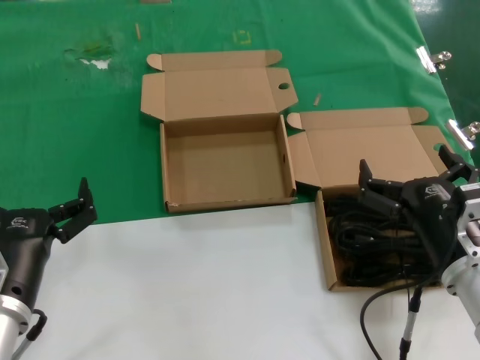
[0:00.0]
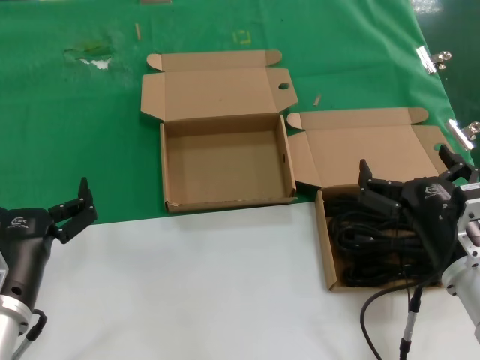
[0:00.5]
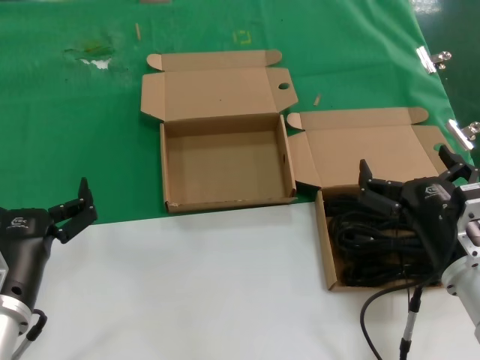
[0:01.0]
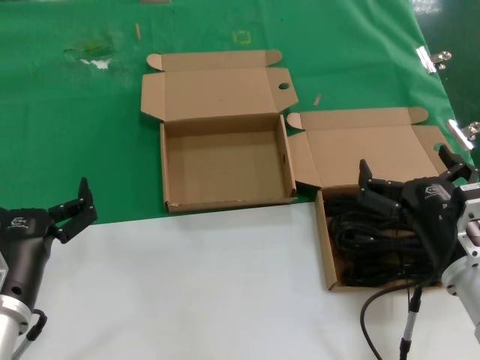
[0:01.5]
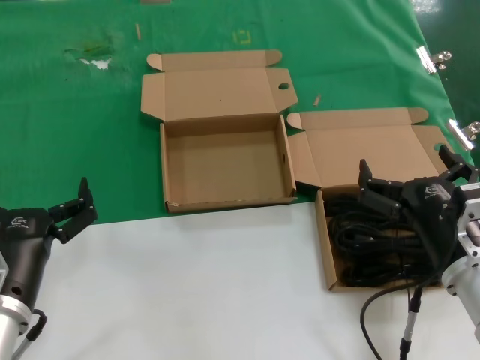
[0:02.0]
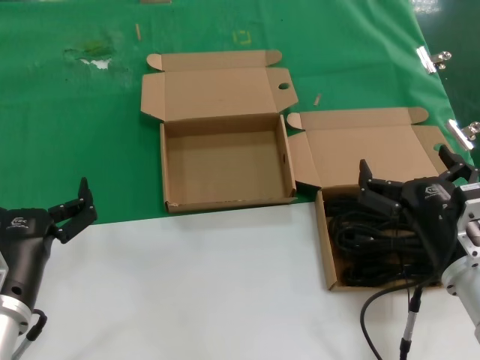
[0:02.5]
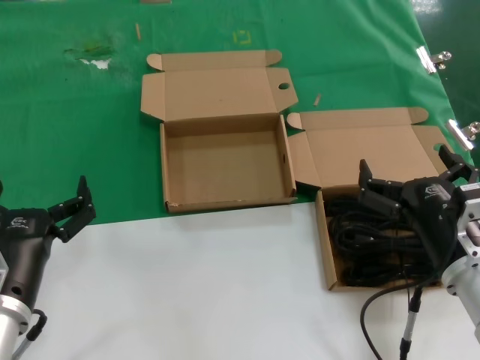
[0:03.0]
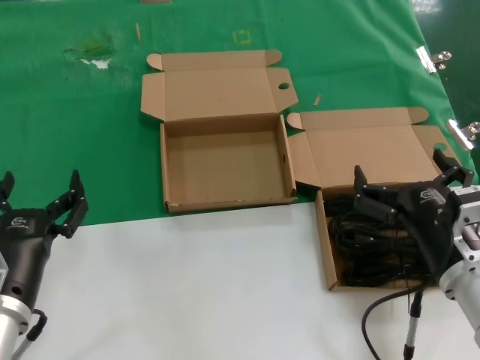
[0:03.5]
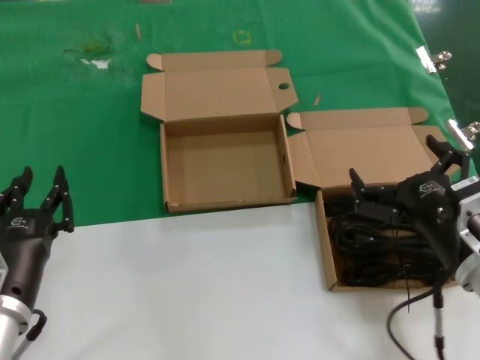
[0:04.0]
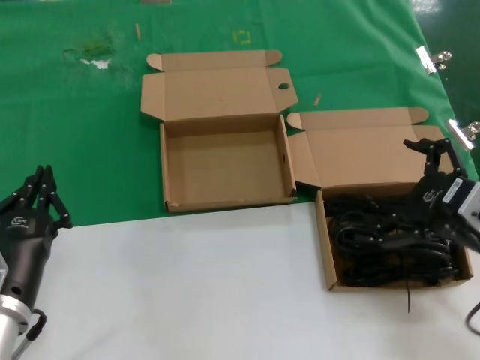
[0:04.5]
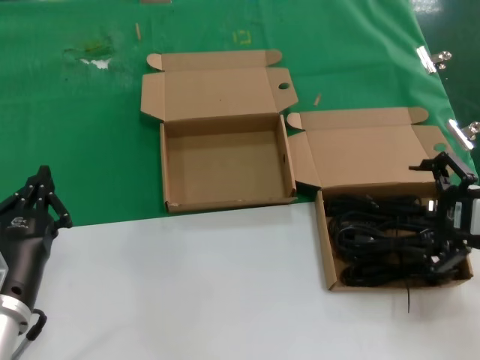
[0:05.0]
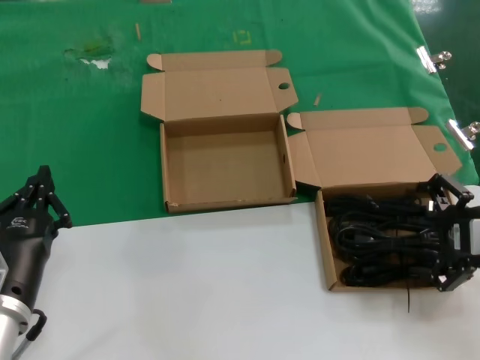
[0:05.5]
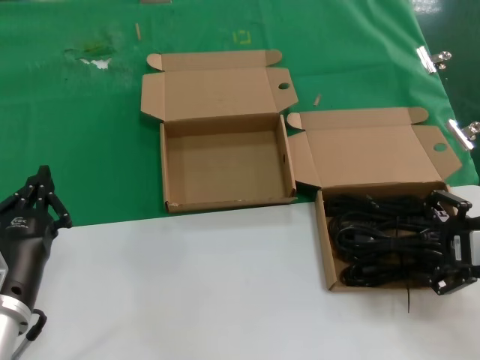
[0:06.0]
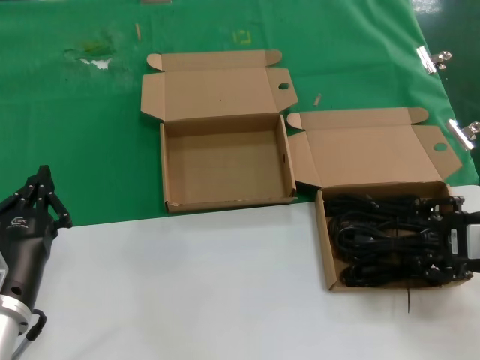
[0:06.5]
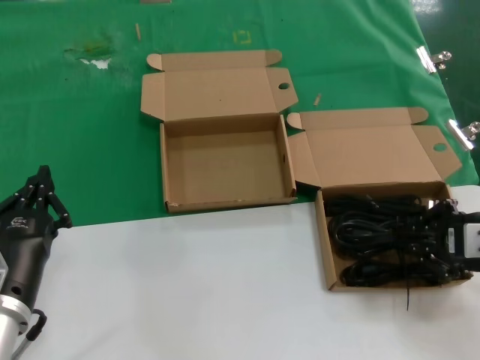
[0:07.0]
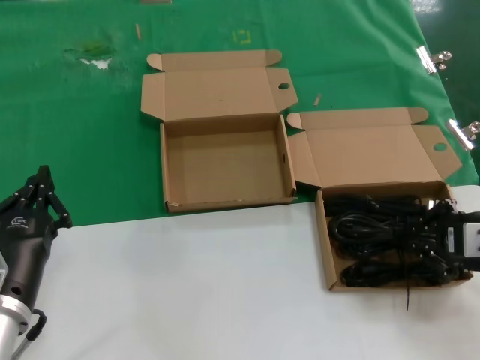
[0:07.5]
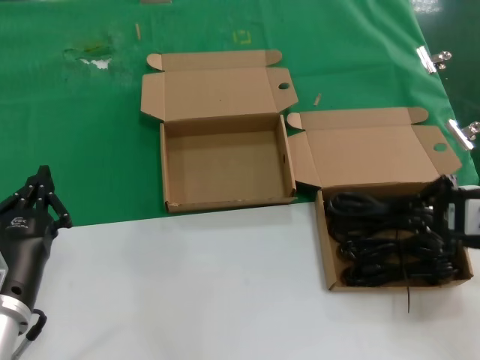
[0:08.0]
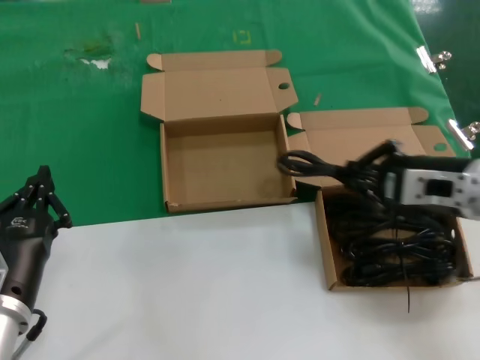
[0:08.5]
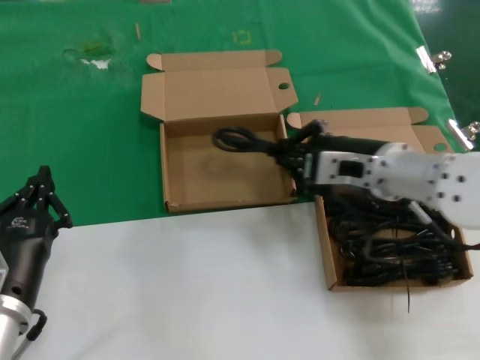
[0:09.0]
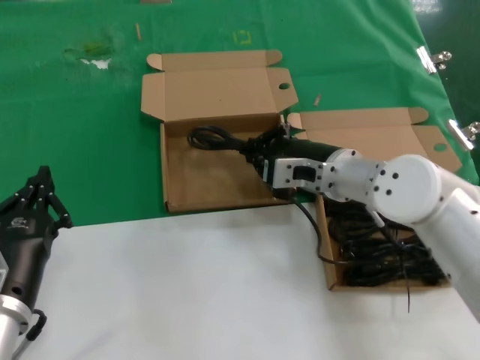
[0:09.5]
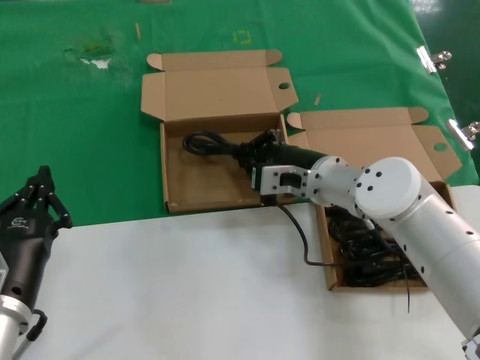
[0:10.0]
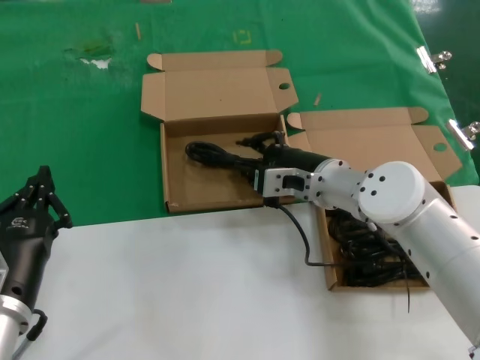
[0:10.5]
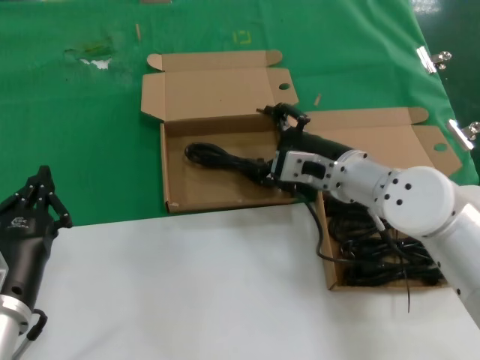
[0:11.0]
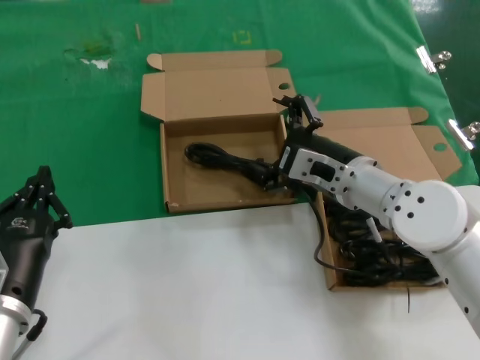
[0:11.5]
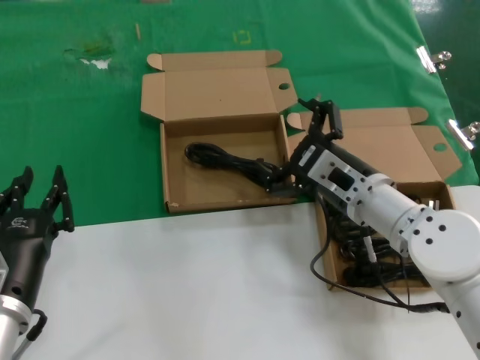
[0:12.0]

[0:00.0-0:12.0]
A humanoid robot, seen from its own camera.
Task of the whole recording: take the parts from the box containing them and put them into an empty box.
Step, 0:00.0 to 0:06.5: Grasp the data cable.
Step, 0:07.0 to 0:10.5: Place the data cable in the another box.
0:00.0 to 0:02.0: Neither hand changes place.
0:02.0 to 0:04.0: The hands stay close to where they were, moving slightly.
0:04.0 to 0:06.0: The right hand travels to the right and upward by roughly 10 cm.
0:06.0 to 0:08.0: The hands make only small movements.
0:08.0 to 0:10.0: The right hand travels to the left and forward by some 25 cm.
0:10.0 to 0:12.0: The right hand heads backward, covering approximately 5 cm.

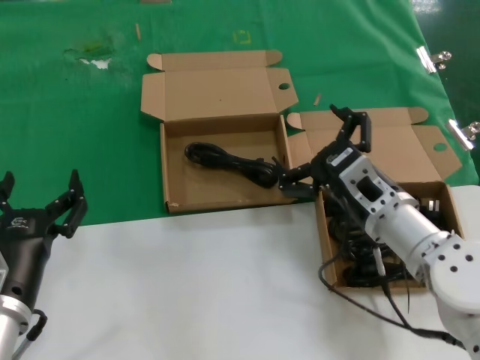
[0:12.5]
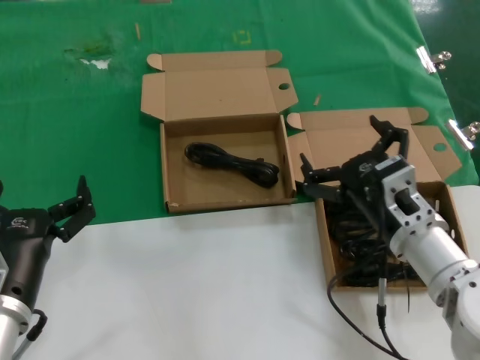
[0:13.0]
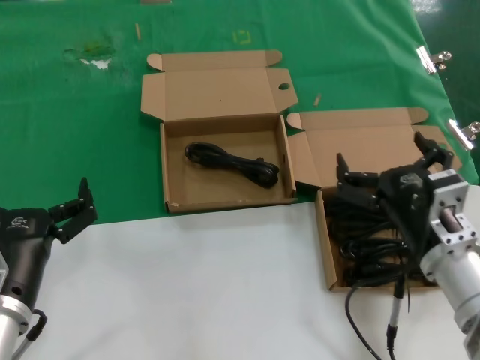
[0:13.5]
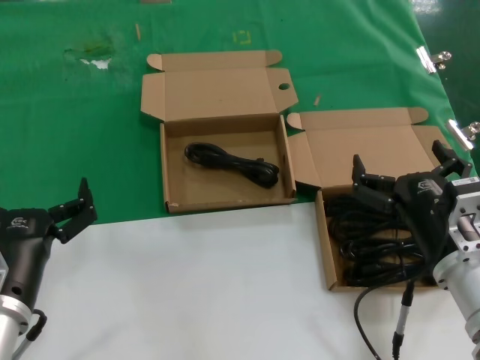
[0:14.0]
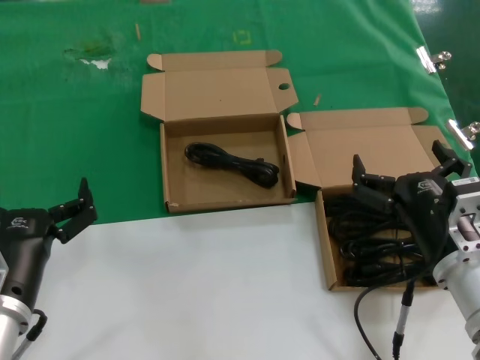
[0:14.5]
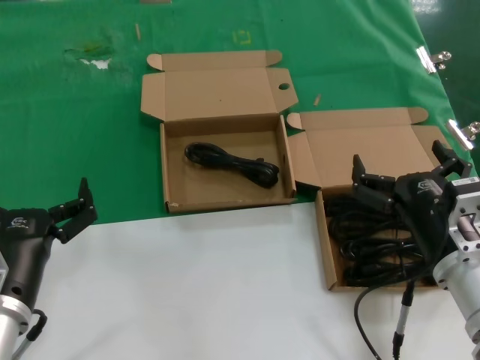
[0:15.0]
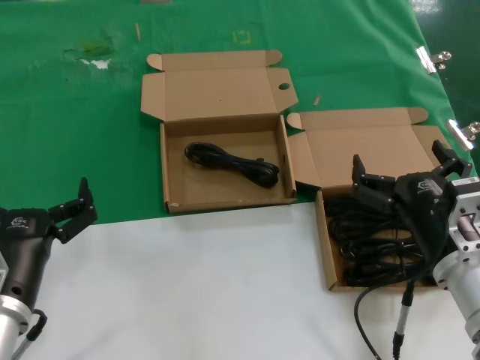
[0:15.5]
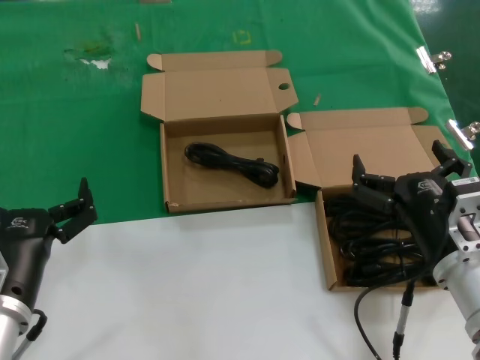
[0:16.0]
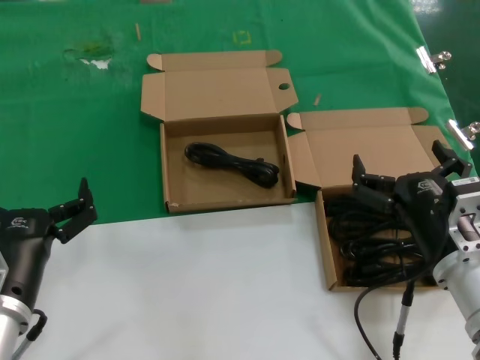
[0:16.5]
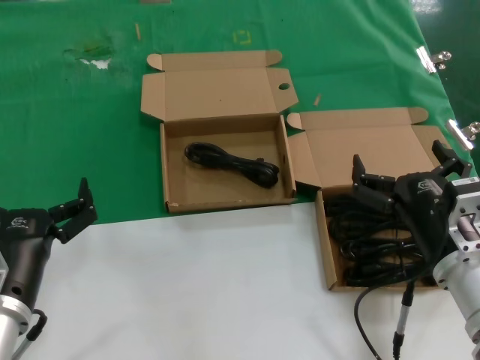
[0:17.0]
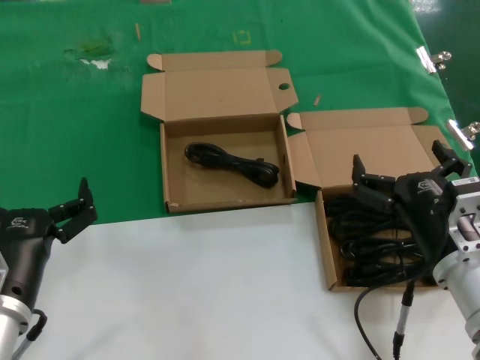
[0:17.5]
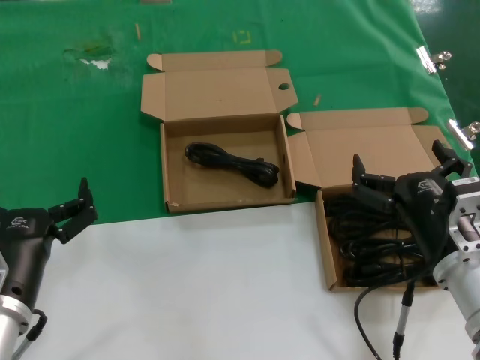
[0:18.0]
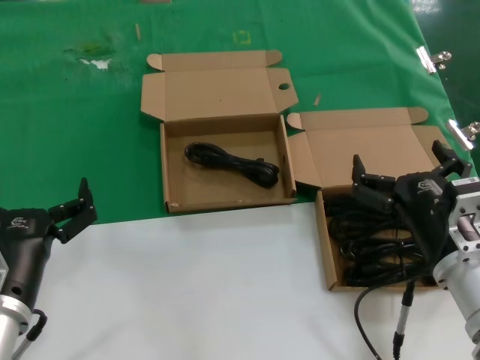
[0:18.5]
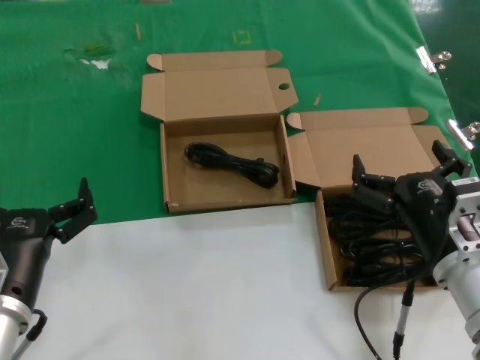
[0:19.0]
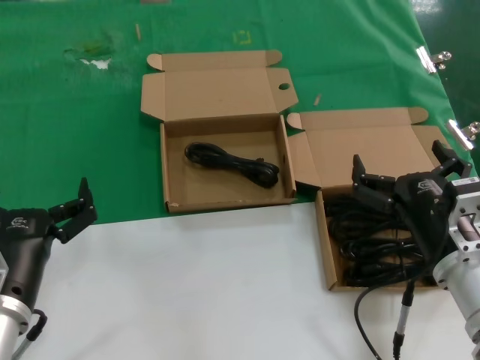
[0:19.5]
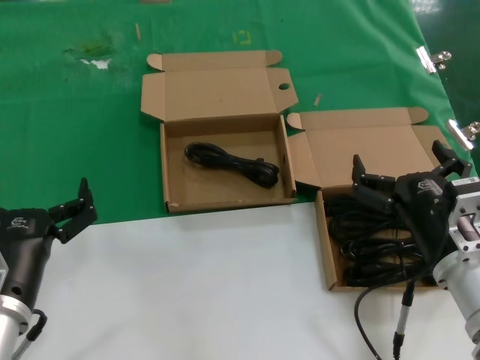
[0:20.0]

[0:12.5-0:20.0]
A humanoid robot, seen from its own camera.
Task of the whole recording: take the parts from the box containing them and put them into an empty box.
0:12.5 to 0:14.5: The right hand travels backward by some 10 cm.
0:14.5 to 0:20.0: The two hands keep their place.

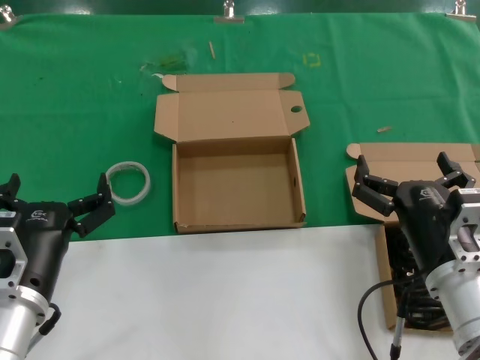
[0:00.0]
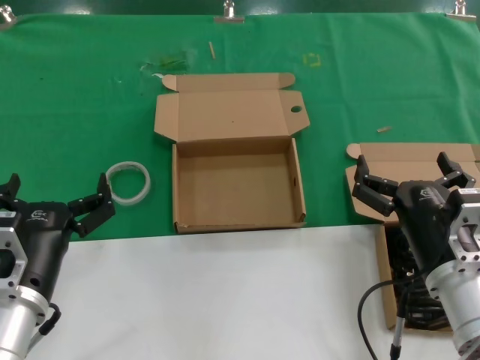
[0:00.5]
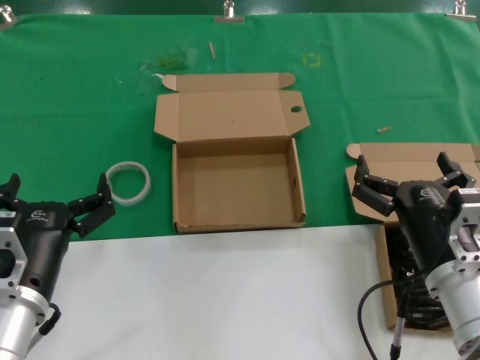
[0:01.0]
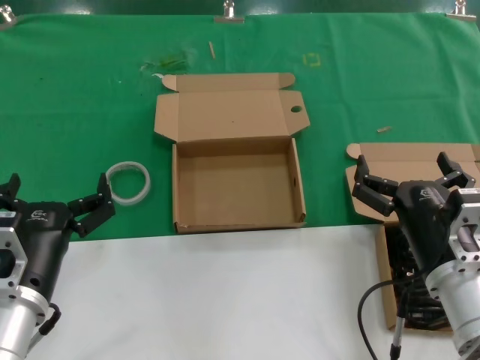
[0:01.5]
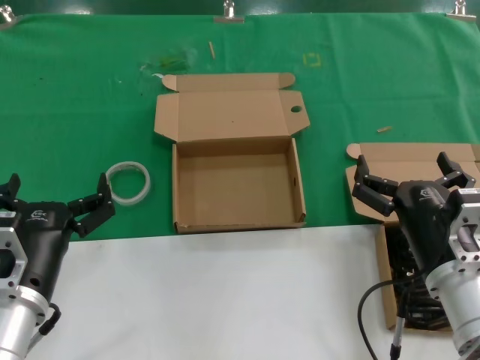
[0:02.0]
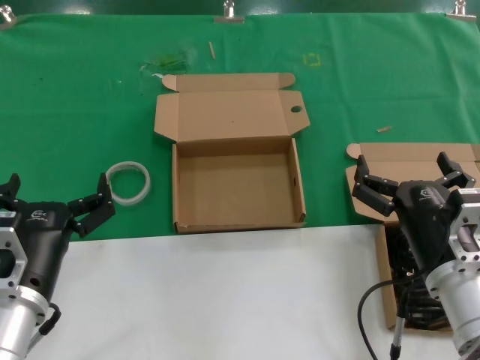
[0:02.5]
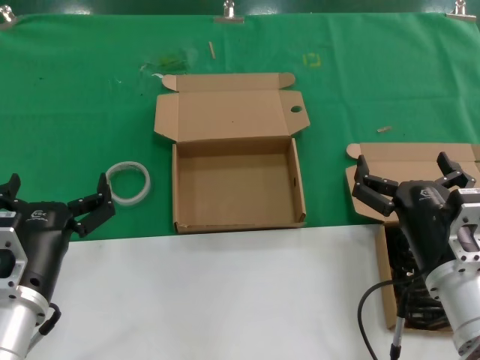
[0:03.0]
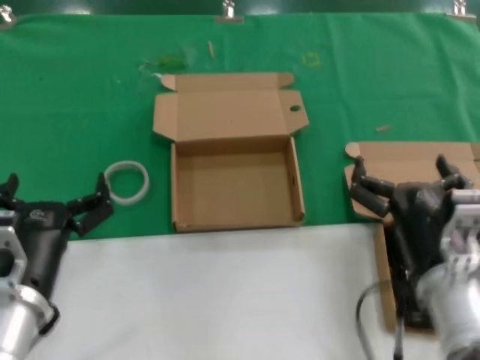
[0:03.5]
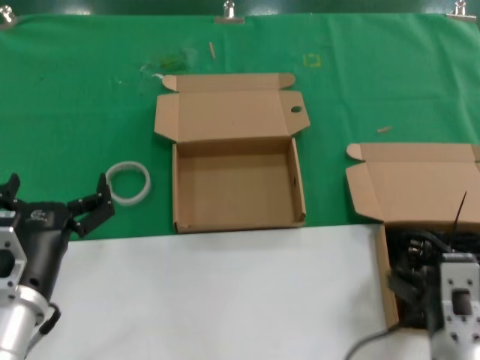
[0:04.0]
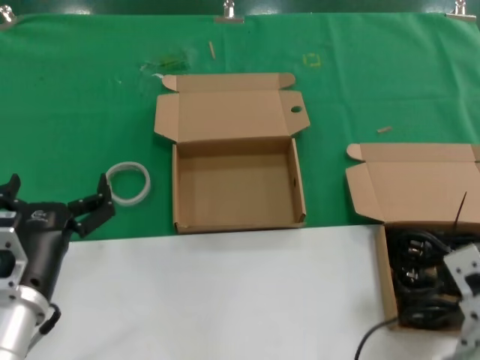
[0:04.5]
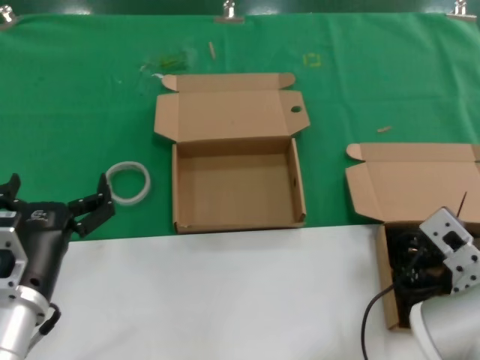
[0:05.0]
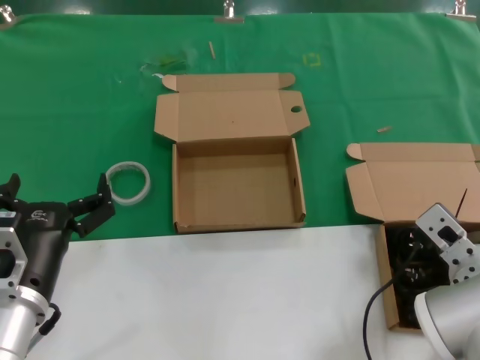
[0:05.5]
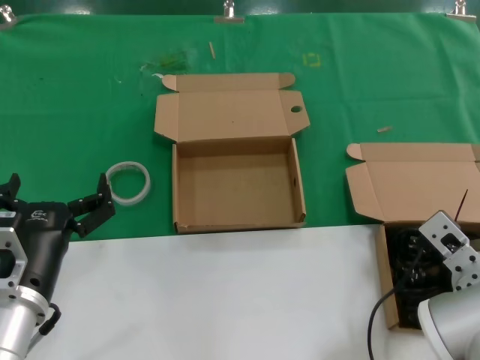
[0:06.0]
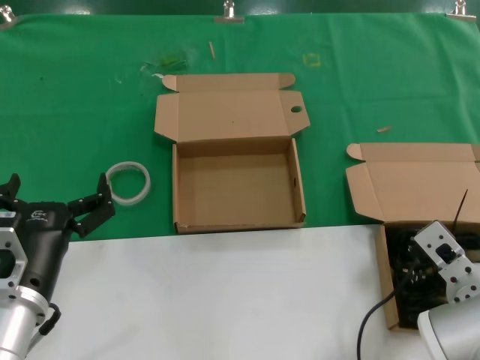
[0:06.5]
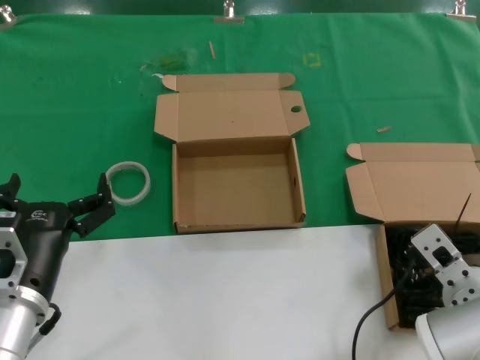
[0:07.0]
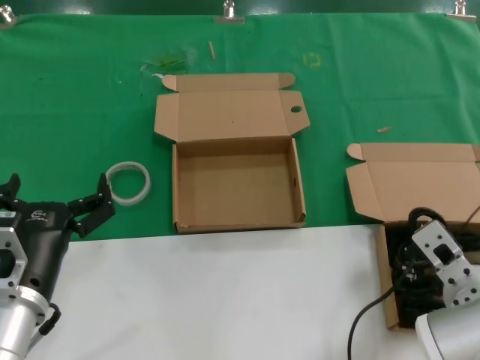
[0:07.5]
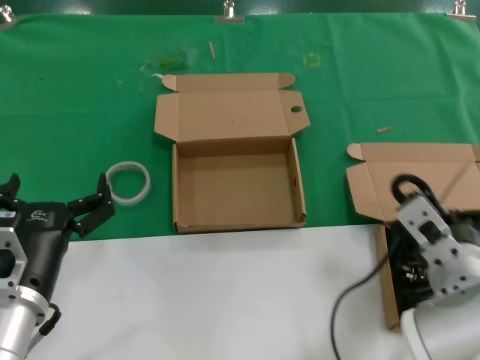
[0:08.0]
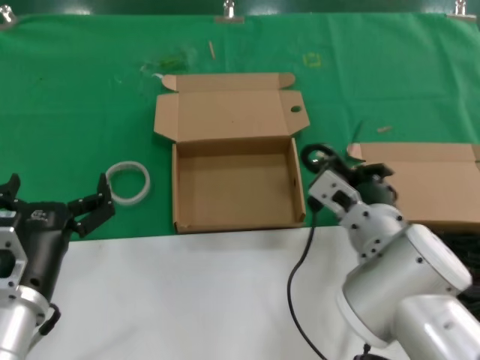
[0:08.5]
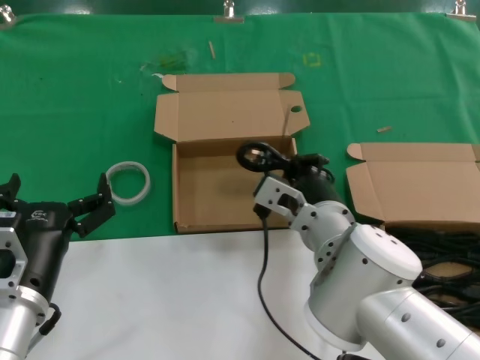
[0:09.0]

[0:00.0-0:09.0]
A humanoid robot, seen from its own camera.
Task of the whole recording: take the parts from the box containing them and put them into an empty box.
Step, 0:00.0 to 0:05.0: Grasp the data cable.
0:00.0 to 0:02.0: Both hands stay put.
0:02.0 to 0:04.5: The right hand changes place by approximately 5 cm.
0:04.5 to 0:07.0: The right hand moves forward, about 10 cm.
0:07.0 to 0:09.0: The right hand shifts some 15 cm to the left and forward.
